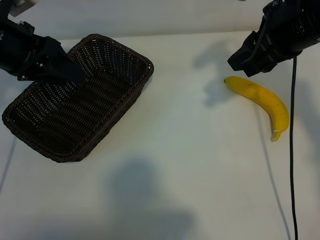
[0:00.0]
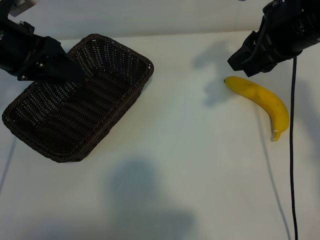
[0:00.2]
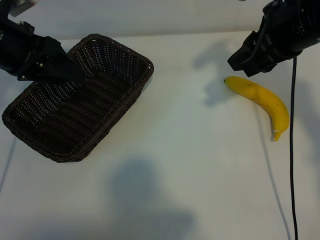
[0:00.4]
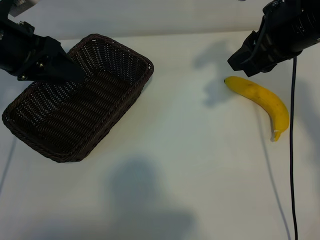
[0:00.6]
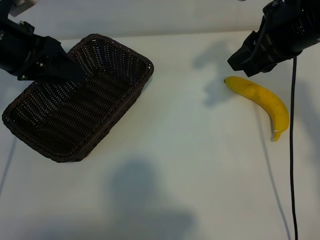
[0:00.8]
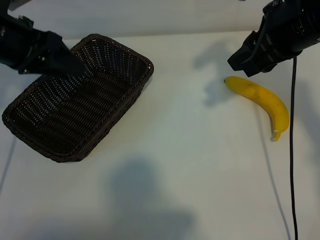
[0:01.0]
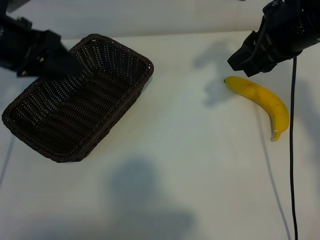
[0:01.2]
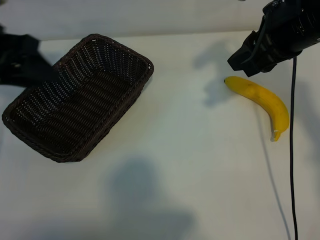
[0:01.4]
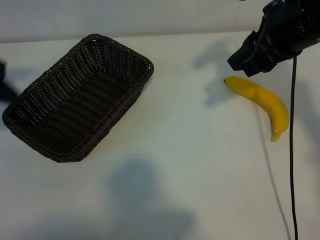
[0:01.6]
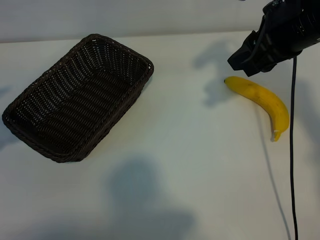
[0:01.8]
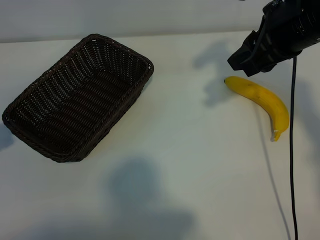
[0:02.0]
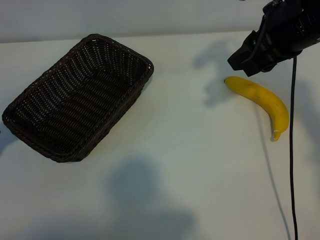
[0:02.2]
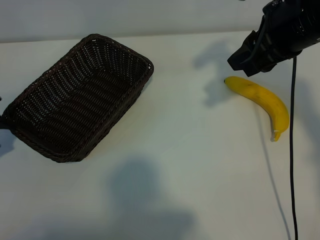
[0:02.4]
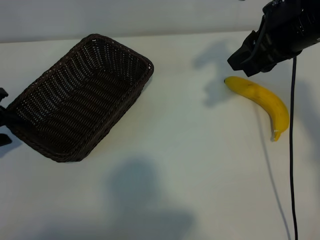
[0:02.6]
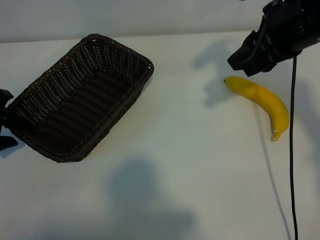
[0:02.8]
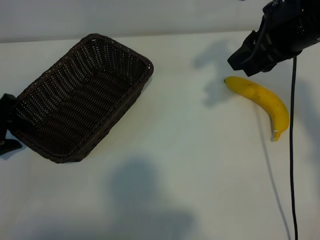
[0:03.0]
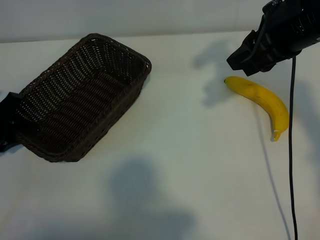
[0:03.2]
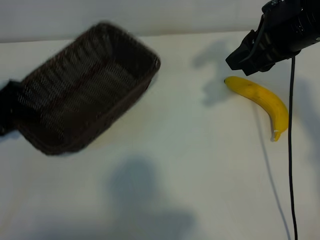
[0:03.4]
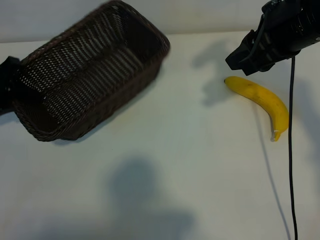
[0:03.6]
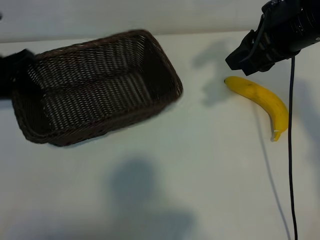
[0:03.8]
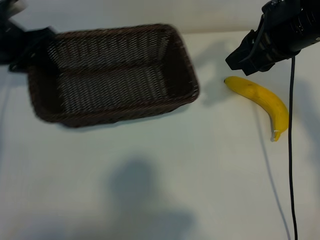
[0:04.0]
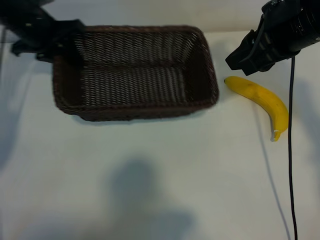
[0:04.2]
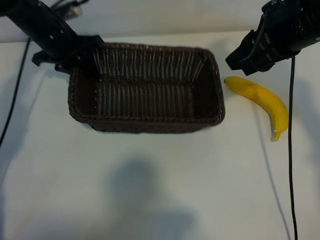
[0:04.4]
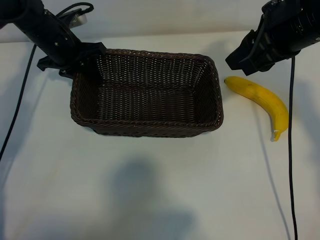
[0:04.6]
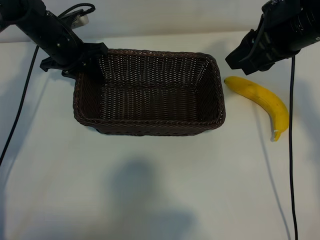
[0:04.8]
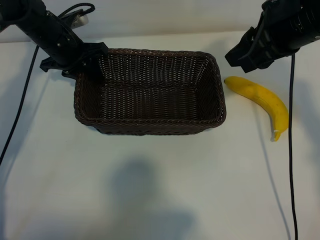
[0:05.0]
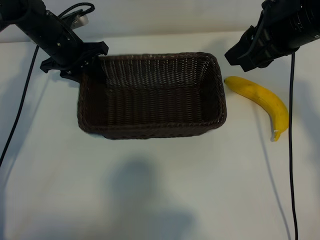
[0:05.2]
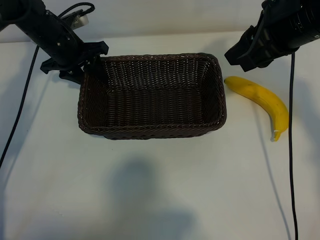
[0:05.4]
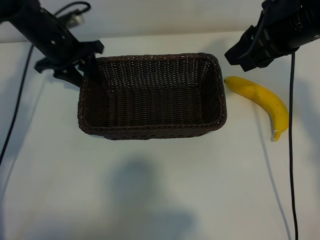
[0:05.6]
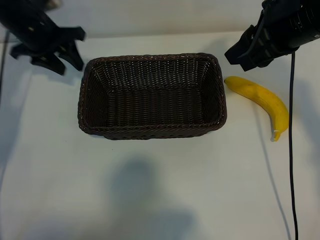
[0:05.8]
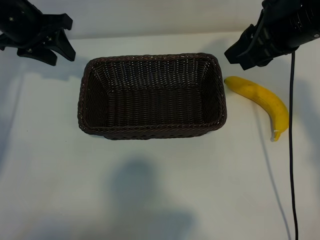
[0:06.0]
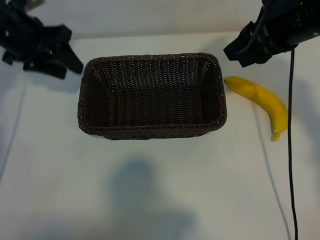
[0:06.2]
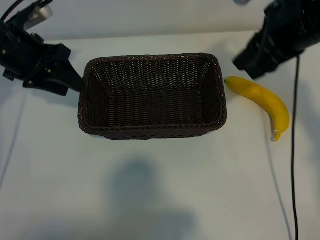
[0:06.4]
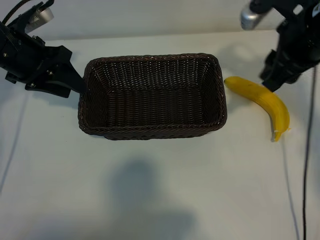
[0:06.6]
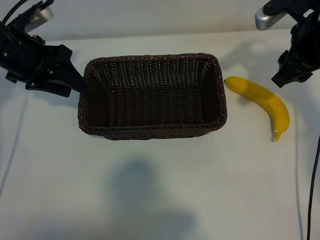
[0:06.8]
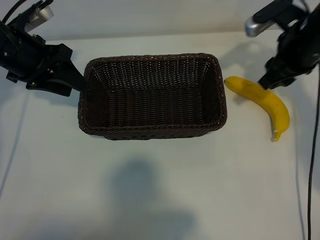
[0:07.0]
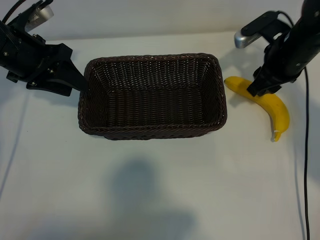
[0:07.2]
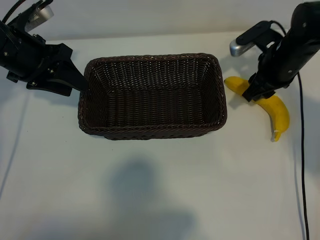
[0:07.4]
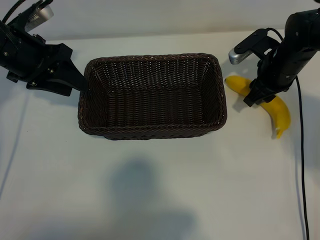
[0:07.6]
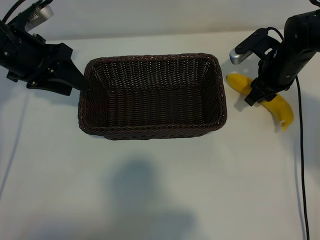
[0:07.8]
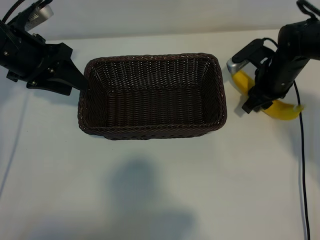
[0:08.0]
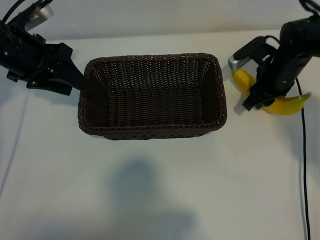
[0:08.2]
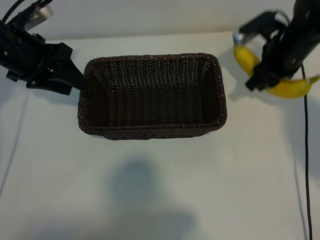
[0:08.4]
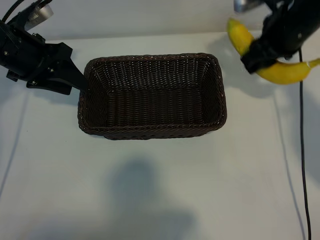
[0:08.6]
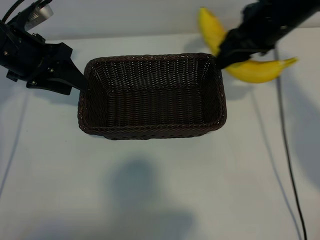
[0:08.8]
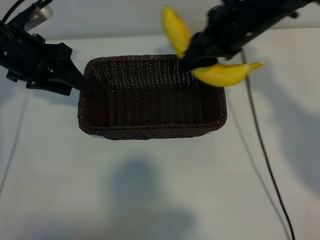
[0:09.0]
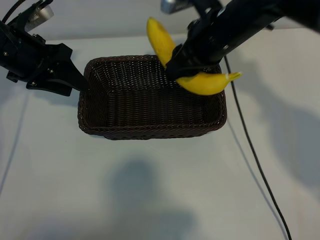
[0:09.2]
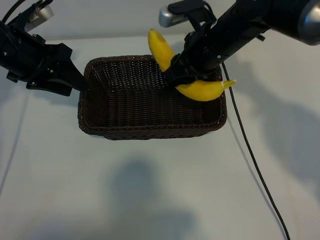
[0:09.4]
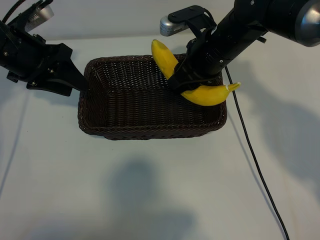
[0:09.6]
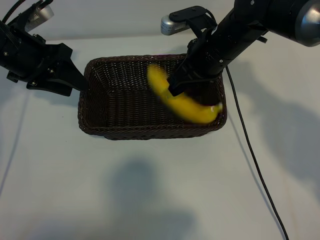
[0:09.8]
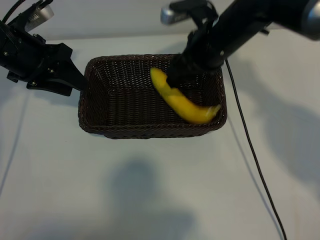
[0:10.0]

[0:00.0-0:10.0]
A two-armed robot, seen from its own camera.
Task of the whole recording: pick up the banana and put it into the basket.
Step, 0.8 to 3.0 s: Grasp the basket with the left gripper.
Step, 3.4 to 5.4 s: Place the basket in the center of the table with the left gripper.
Step, 5.8 to 8.0 s: Grasp the banana with right gripper.

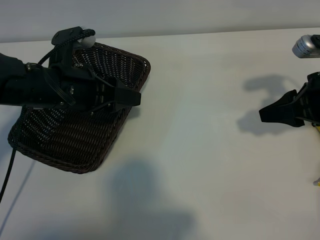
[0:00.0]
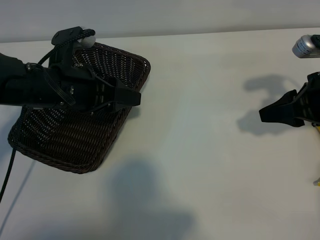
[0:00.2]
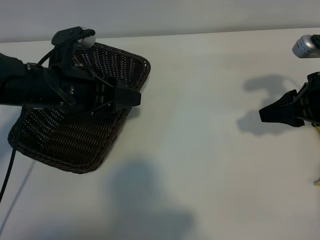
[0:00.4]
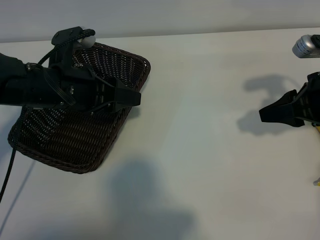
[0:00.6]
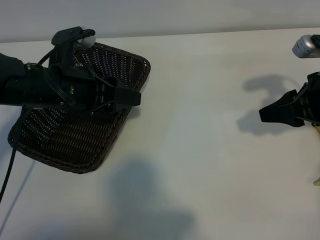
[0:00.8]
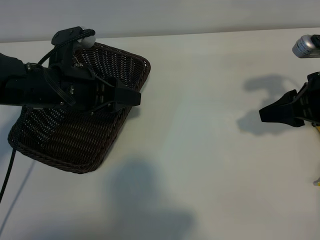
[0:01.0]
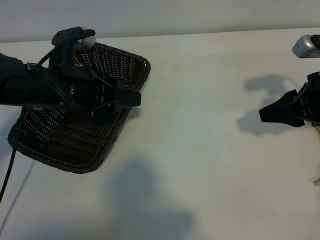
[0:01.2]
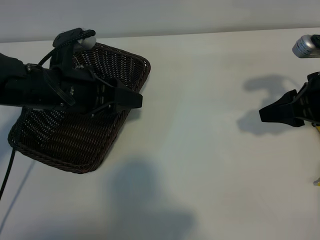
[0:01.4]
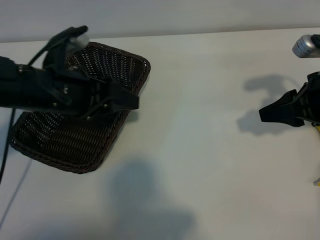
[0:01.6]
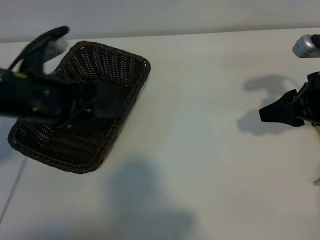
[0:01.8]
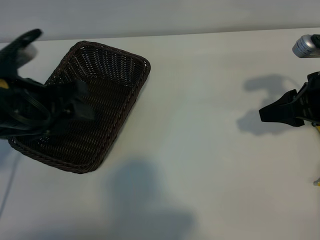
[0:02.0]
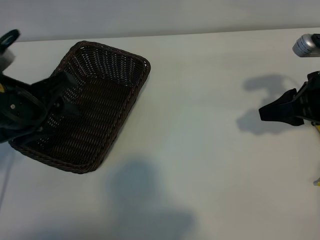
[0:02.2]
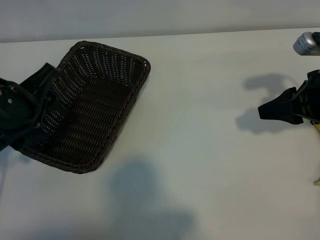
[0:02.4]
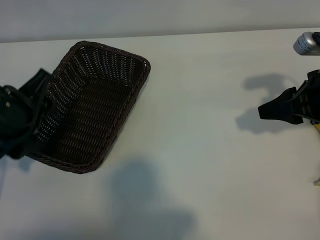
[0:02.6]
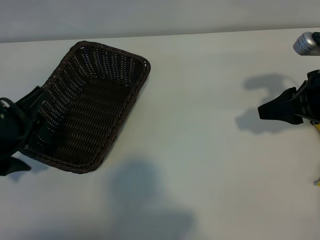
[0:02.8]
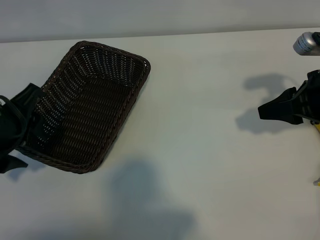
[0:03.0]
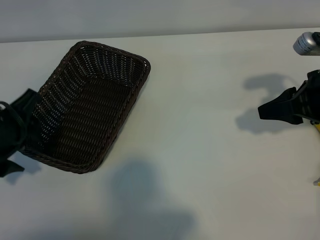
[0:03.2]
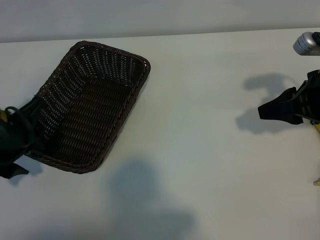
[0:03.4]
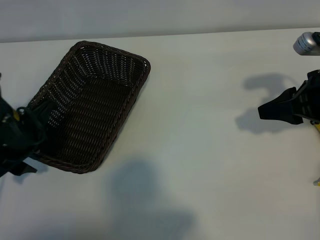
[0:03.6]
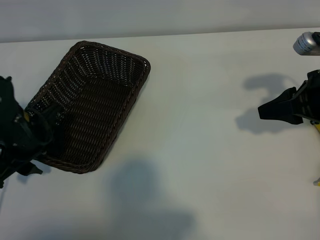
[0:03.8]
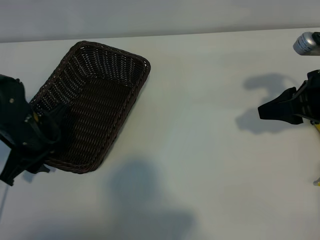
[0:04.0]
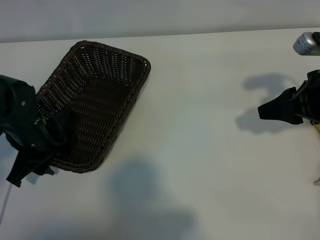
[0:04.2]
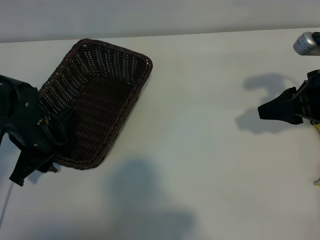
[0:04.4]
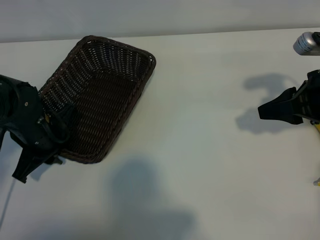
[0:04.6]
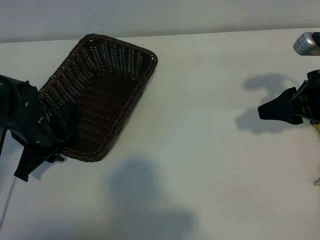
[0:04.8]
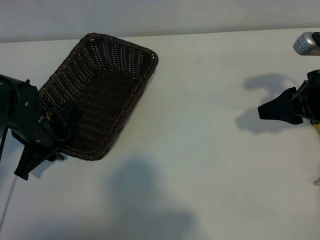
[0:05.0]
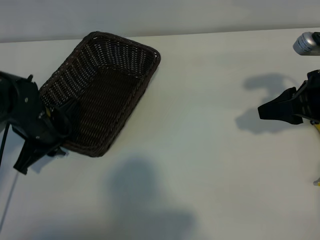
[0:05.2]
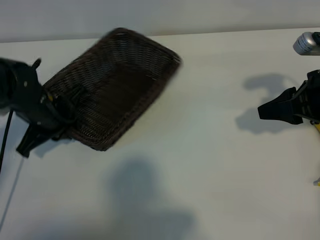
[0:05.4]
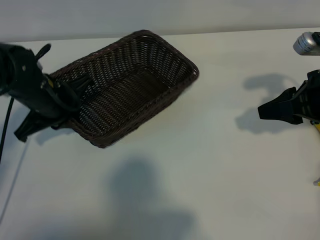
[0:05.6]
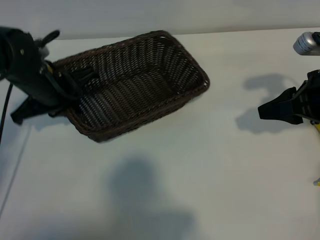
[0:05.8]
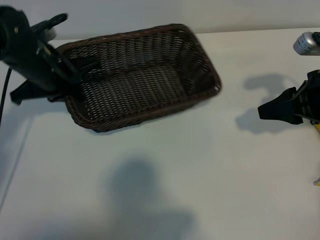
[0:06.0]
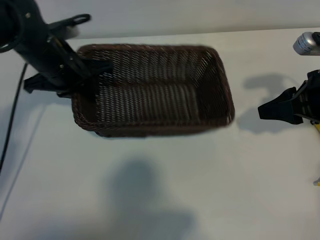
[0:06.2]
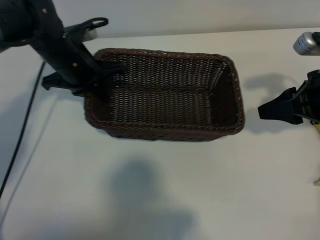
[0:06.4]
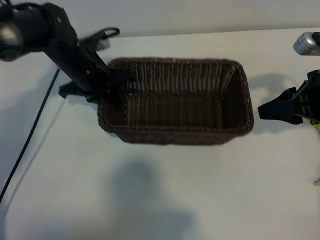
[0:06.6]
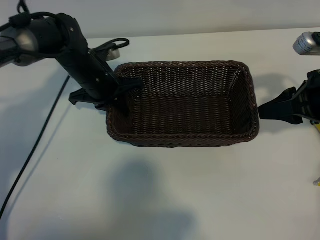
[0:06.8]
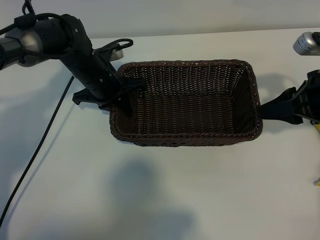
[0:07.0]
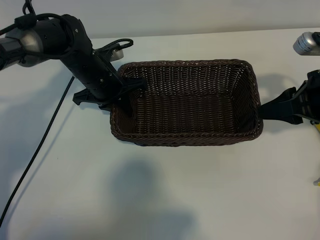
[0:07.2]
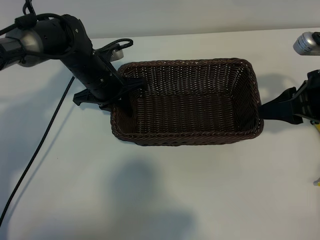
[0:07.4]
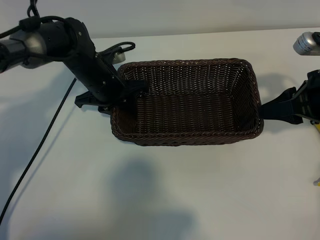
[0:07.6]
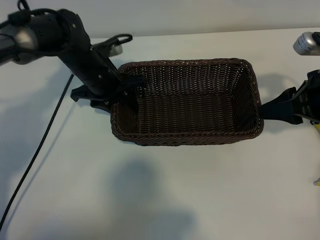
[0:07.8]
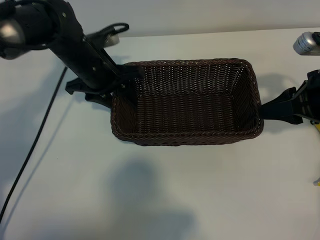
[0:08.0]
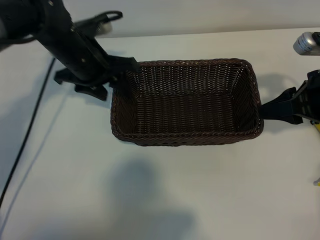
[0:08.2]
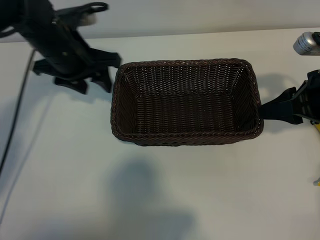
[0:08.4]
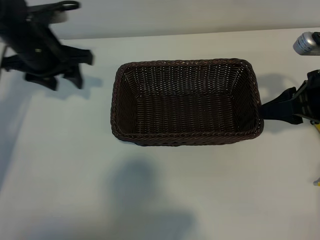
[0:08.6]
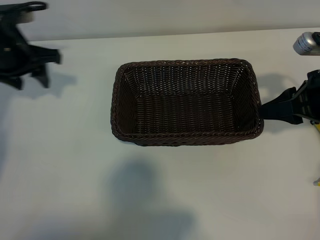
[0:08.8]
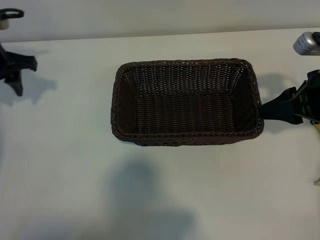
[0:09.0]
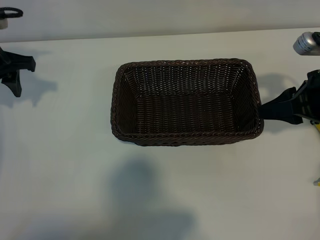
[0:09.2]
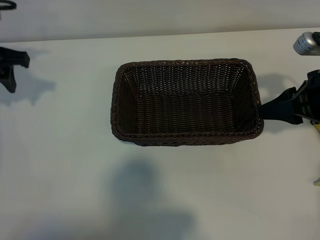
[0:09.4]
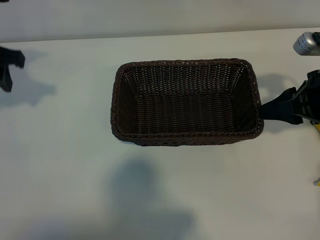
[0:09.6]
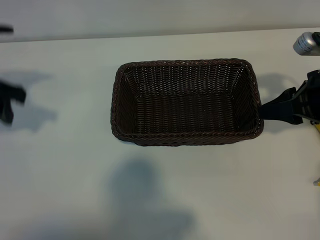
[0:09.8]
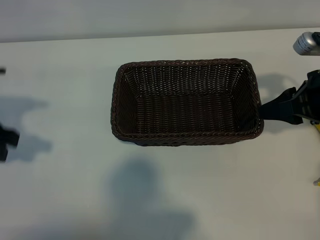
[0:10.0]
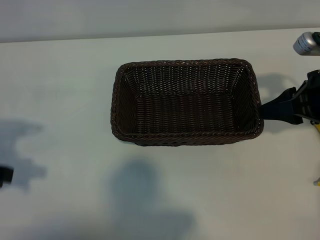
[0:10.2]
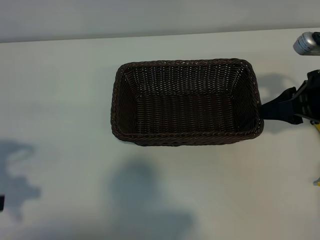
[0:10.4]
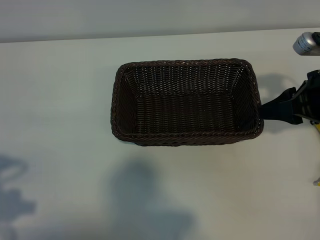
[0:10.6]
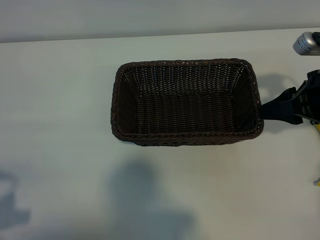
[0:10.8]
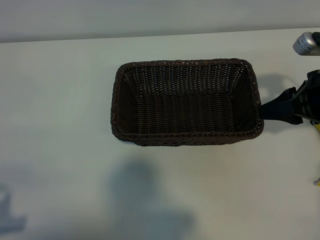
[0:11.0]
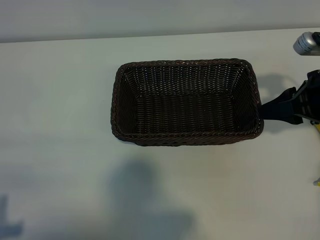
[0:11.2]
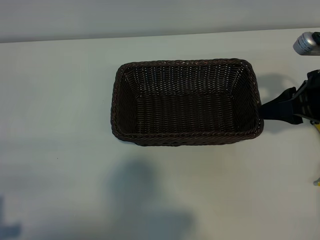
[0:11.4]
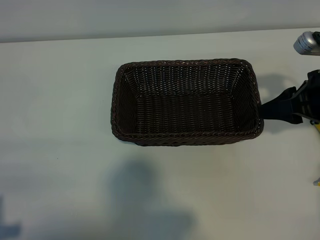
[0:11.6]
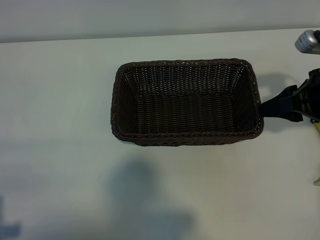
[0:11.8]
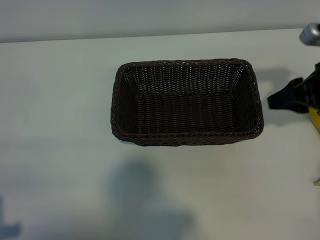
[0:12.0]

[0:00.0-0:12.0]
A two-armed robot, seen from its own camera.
Task of the whole recording: pick up the banana and put it into the basket.
Step, 1.2 to 4.8 s: Grasp the basket with the left gripper.
Step, 5.0 to 8.0 s: Place the basket in the center of the table with the left gripper.

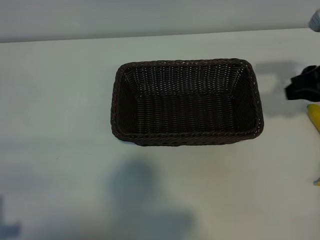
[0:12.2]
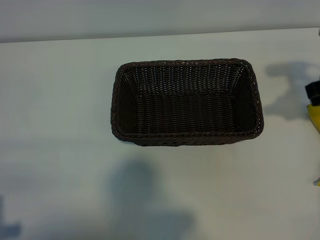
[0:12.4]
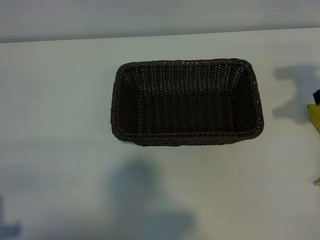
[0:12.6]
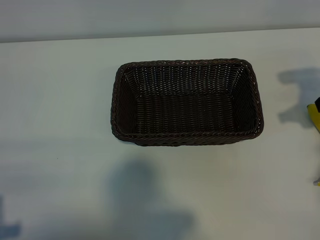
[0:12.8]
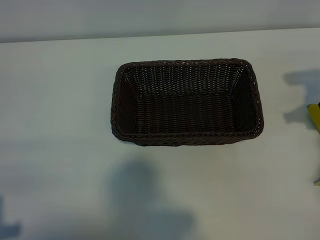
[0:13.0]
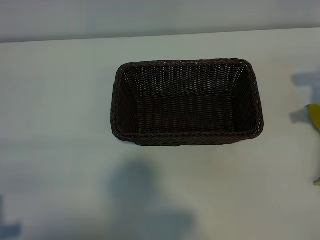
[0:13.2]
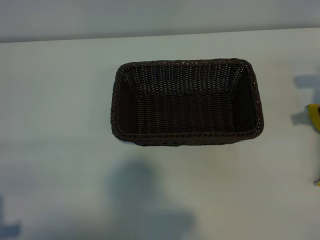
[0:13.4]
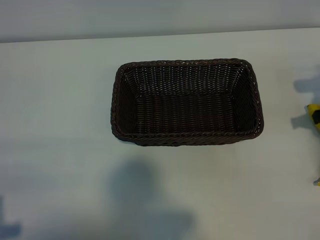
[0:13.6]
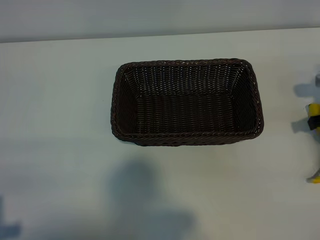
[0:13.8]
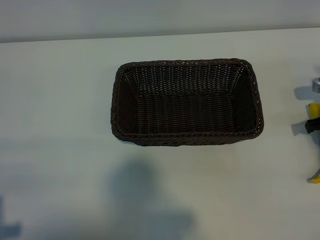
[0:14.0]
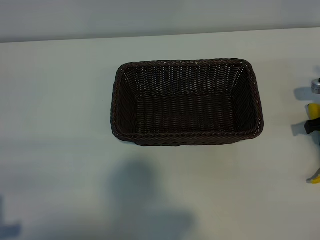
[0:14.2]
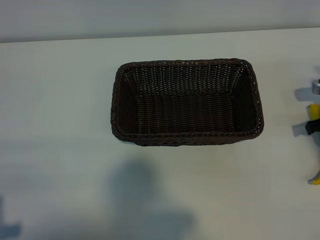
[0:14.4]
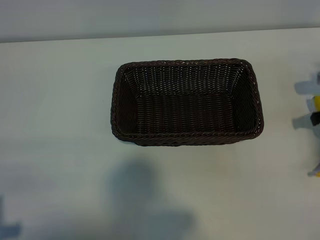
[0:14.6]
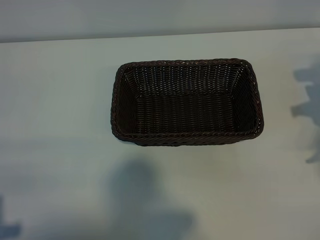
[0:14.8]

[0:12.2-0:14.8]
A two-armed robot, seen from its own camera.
Task of the whole recording: pick up the banana and put it into the basket.
Step, 12.2 to 14.2 s: Grasp the banana with right gripper.
